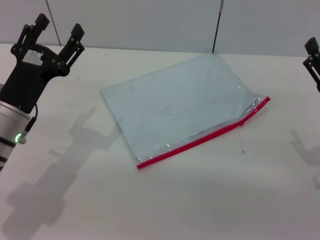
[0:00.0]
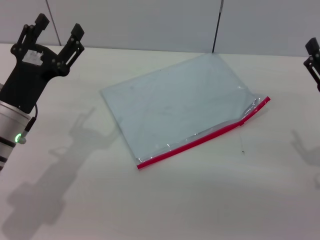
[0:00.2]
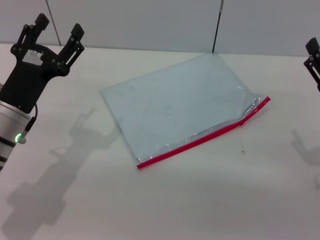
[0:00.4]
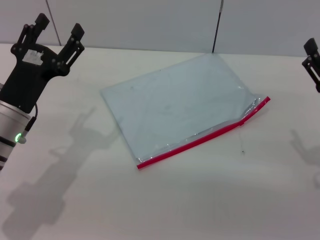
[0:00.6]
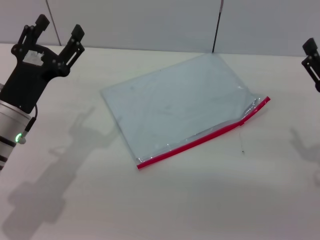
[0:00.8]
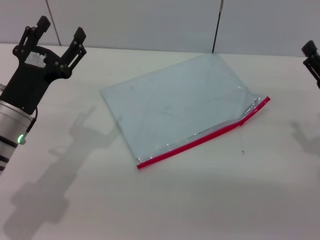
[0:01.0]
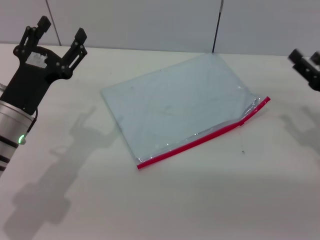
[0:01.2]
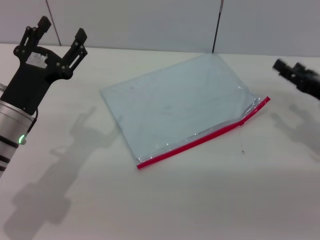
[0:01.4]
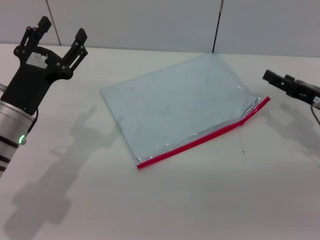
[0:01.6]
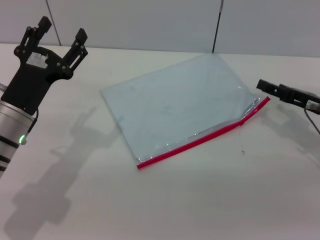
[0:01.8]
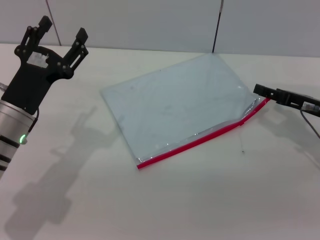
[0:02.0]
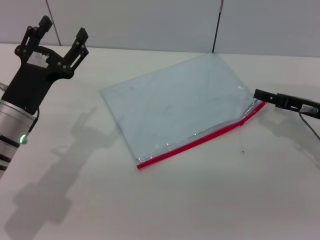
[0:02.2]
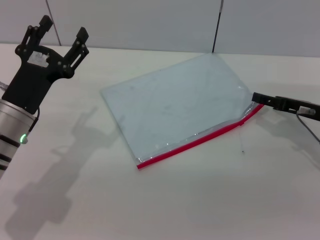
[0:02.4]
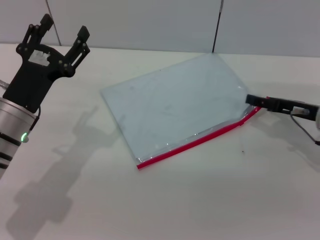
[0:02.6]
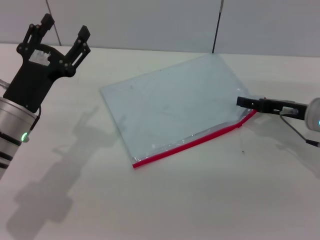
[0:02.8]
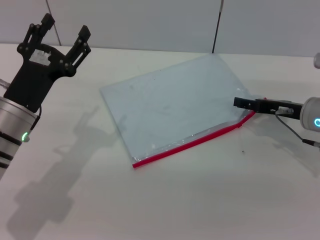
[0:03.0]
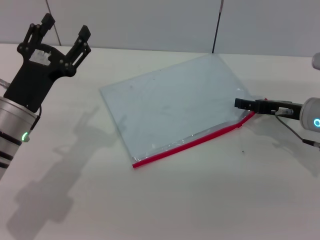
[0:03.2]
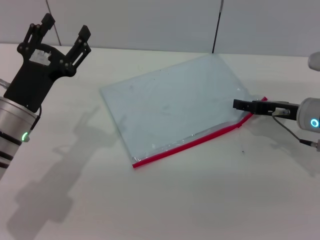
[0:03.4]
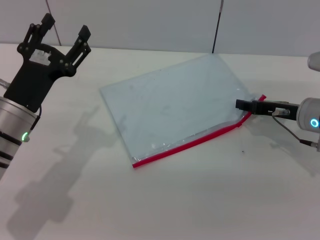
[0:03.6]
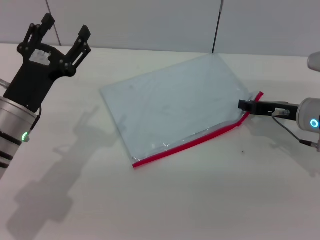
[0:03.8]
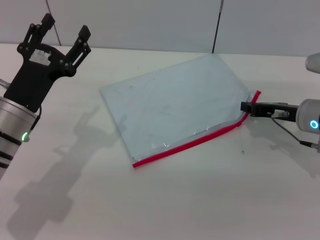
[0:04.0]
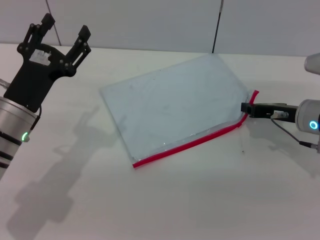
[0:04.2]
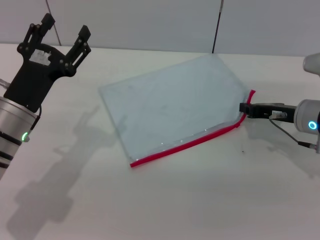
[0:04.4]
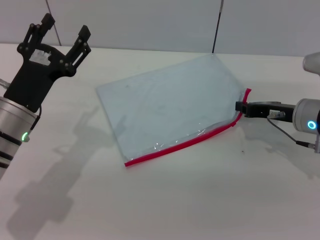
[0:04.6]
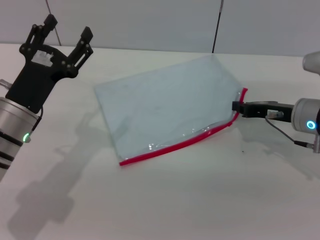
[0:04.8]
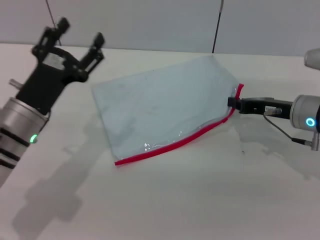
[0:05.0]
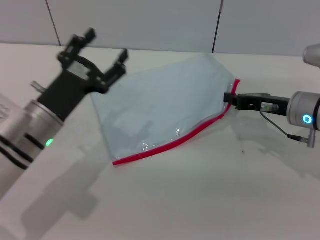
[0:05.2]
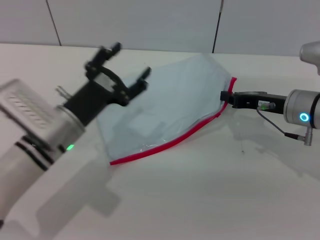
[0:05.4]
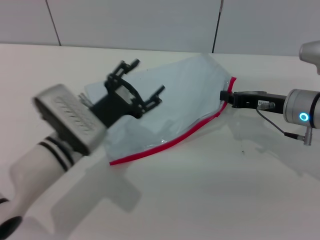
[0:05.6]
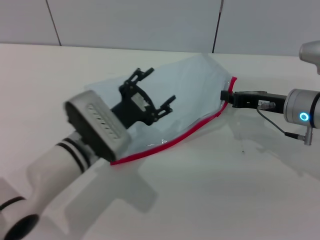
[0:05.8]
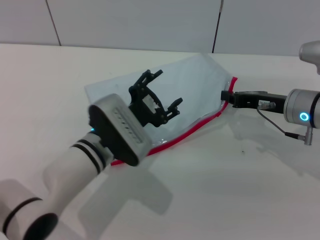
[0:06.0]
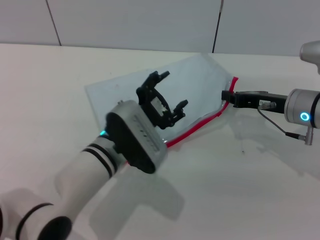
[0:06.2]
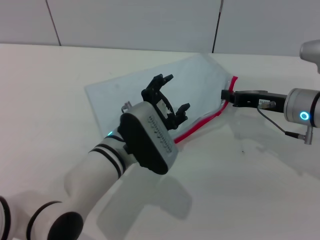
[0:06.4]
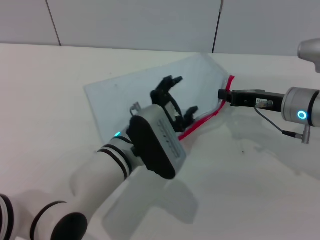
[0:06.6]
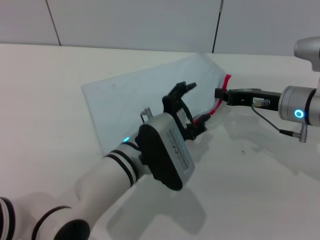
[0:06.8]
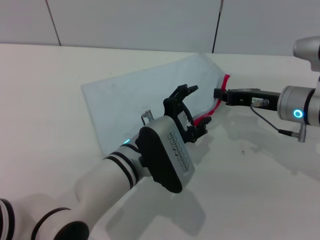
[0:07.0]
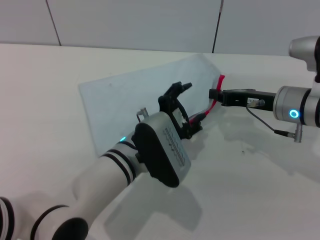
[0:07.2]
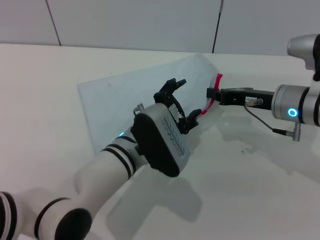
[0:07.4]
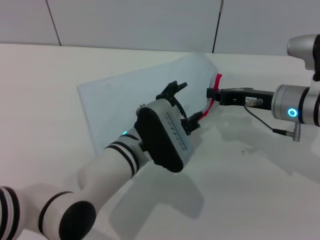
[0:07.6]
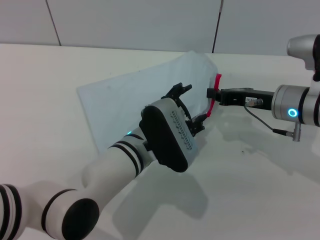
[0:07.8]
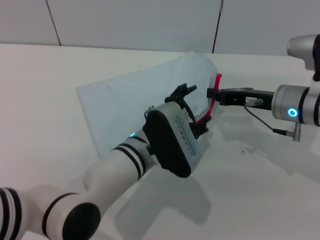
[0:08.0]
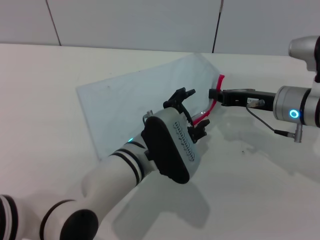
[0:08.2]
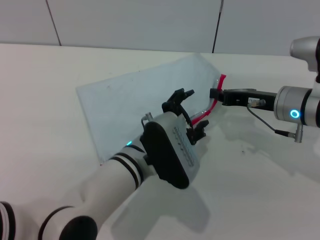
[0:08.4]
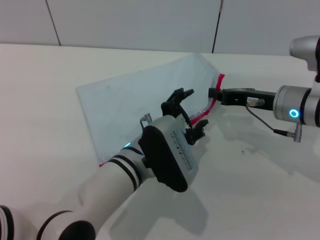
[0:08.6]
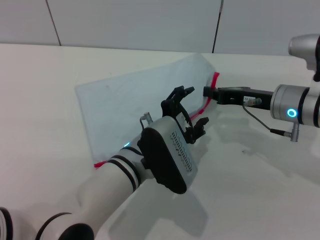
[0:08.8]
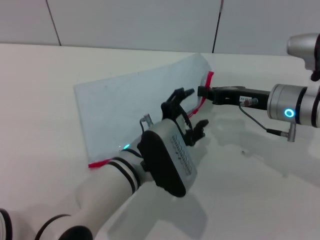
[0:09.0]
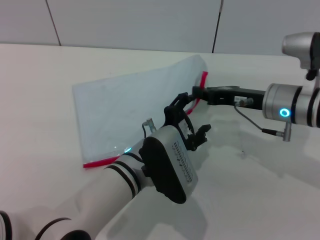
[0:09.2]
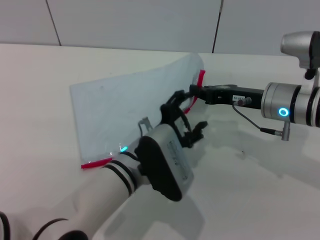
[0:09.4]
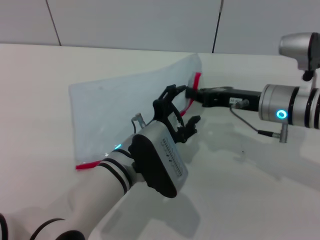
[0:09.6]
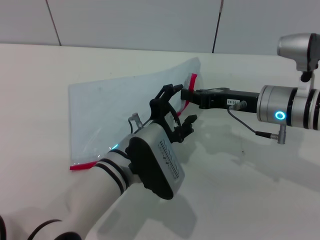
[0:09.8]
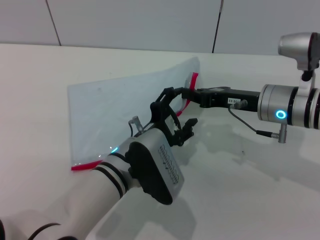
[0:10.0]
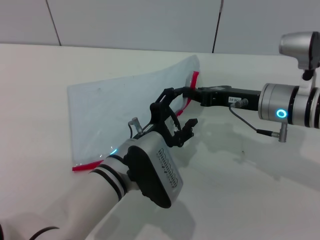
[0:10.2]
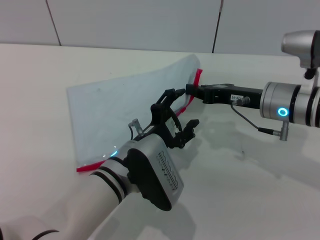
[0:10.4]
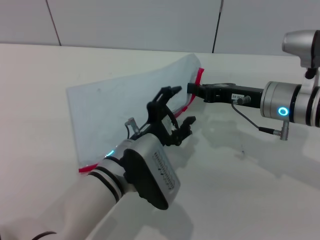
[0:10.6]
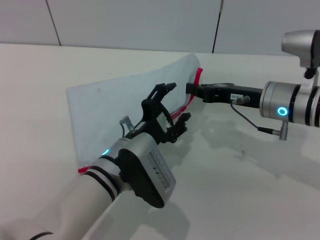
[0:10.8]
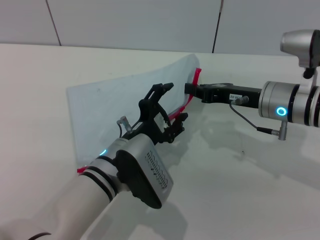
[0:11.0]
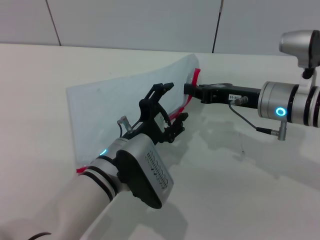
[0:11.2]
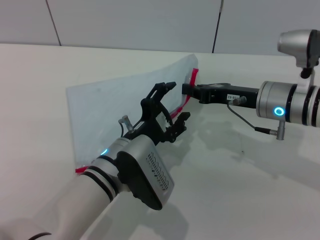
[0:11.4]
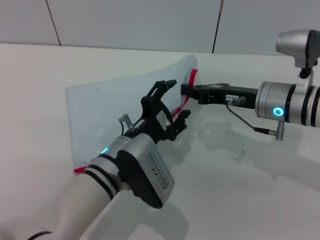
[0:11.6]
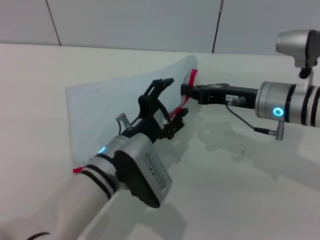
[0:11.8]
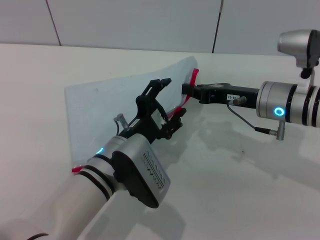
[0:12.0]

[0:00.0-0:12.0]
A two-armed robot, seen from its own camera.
Step, 0:00.0 to 0:07.4: Pick up the transparent plastic bag with the right gripper.
0:00.0 to 0:01.6: The right gripper goes approximately 10 cm forward.
0:01.6 to 0:03.0: The right gripper shifts by approximately 5 cm.
0:03.0 to 0:04.4: The right gripper closes.
0:04.4 to 0:06.0: The left gripper goes roughly 10 cm to the right.
0:07.6 to 0:12.0: The grippers make only small movements.

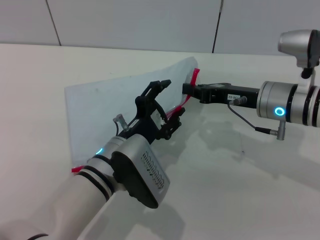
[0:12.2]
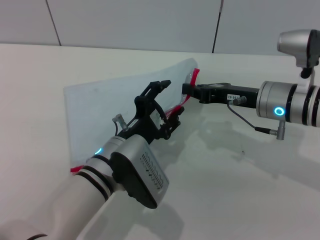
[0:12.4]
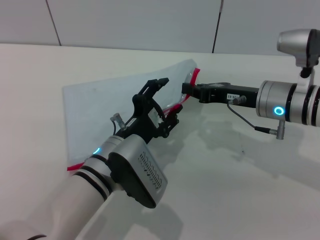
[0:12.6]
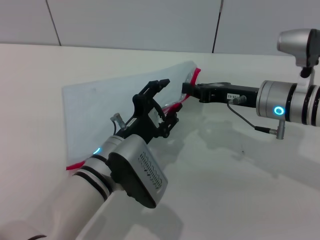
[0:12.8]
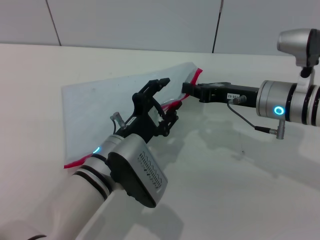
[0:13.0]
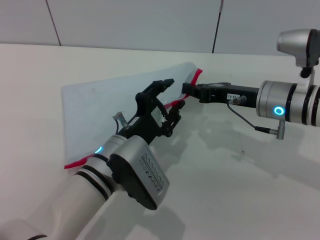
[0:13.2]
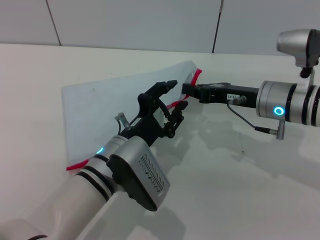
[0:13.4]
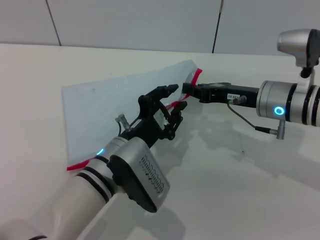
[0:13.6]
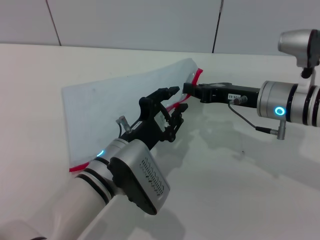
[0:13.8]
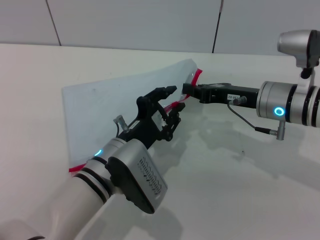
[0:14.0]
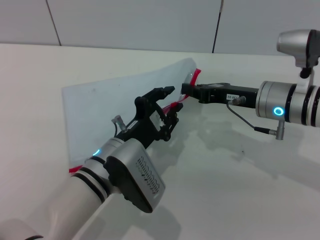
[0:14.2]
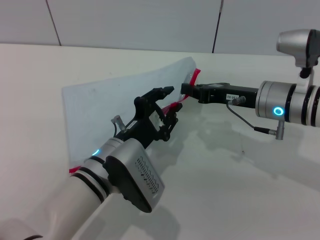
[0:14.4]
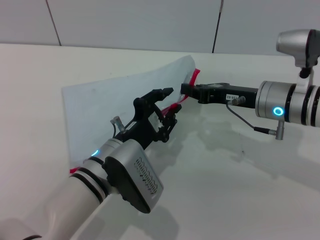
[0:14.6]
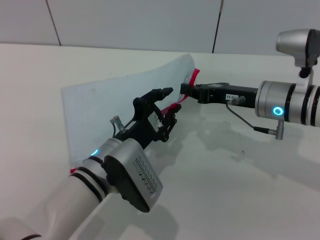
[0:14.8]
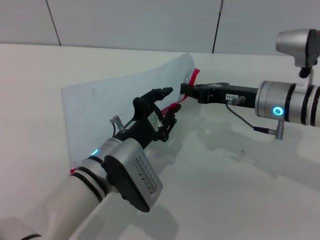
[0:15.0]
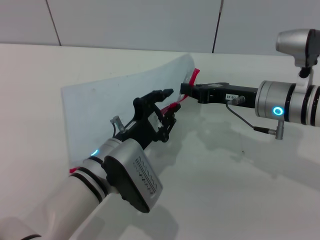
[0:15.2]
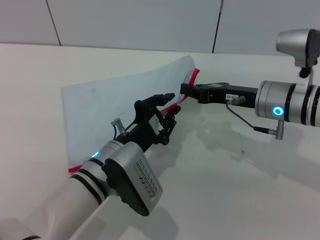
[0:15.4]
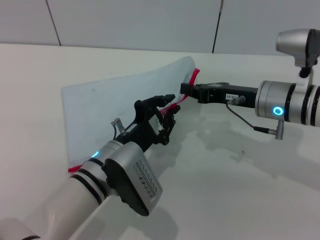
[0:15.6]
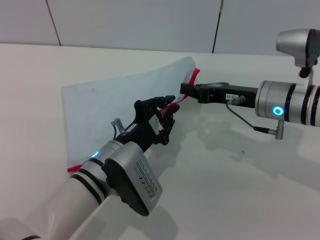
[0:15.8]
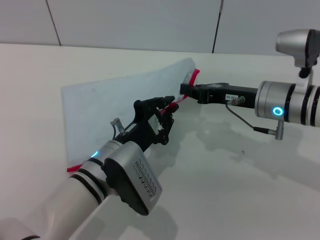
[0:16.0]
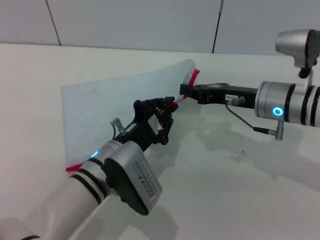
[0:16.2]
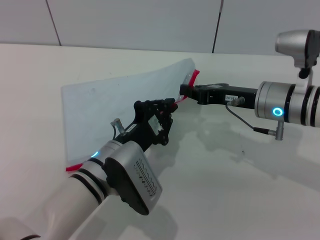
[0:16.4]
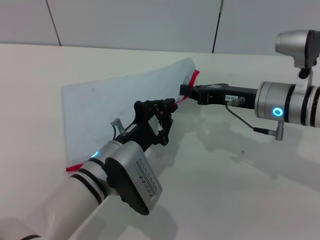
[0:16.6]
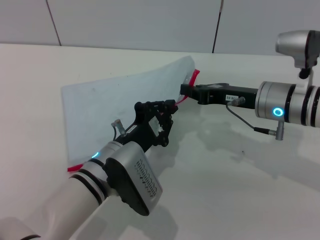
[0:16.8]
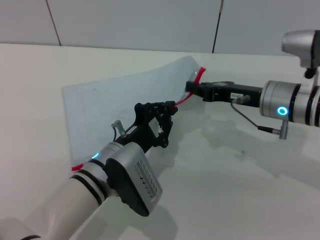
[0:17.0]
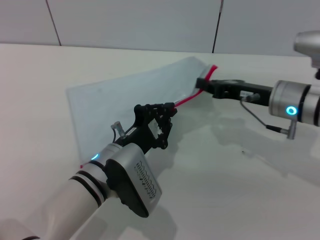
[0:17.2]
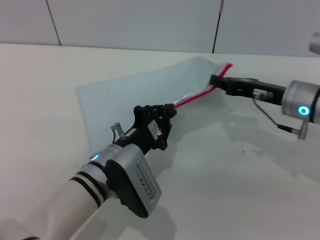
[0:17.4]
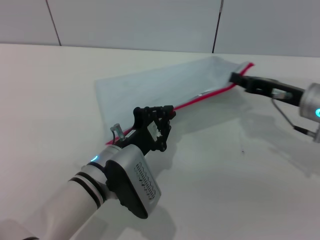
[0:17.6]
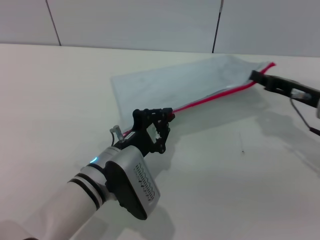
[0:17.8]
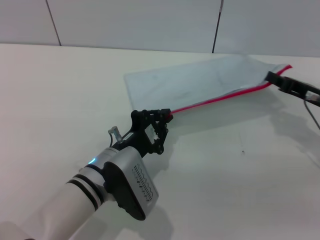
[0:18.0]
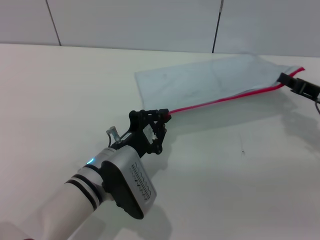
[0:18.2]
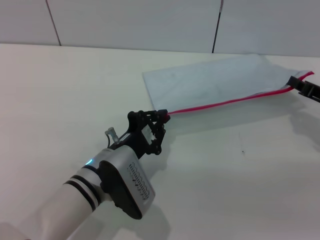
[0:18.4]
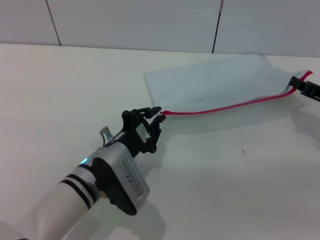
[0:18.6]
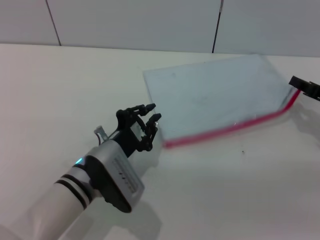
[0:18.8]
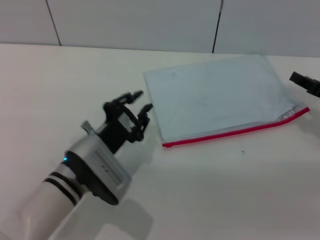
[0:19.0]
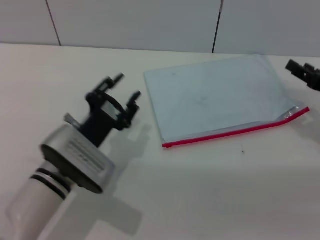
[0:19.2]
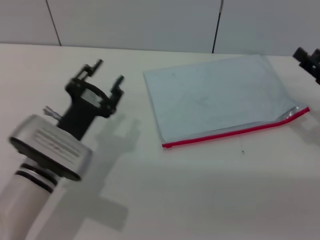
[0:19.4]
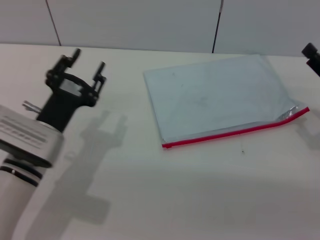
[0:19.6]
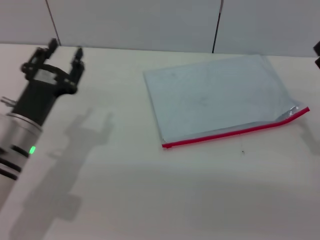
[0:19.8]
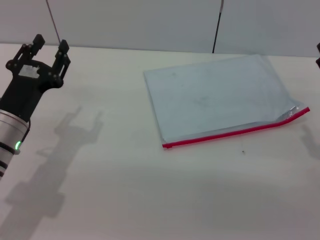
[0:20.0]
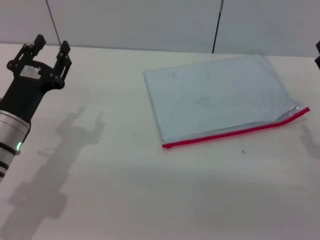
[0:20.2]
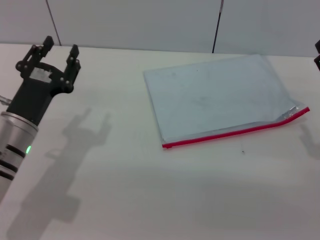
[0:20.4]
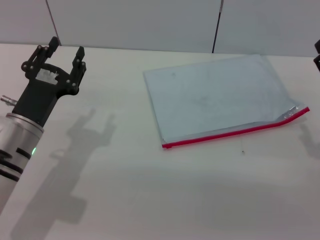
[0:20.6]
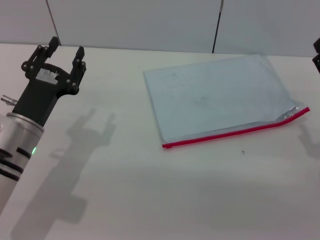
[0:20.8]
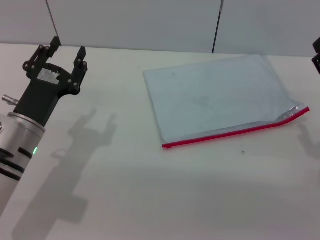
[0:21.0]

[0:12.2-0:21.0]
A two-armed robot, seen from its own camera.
Step, 0:12.2 to 0:18.4: Pulling up the zipper on the transparent plastic bag with the left gripper to close it.
Step, 0:18.6 to 0:19.4: Place the transparent plastic bag.
0:12.2 to 0:13.6: The left gripper closes.
0:13.6 to 0:16.6: Neither gripper changes place.
0:16.6 to 0:18.0: The right gripper is displaced to the right by about 10 cm.
0:18.0 to 0:19.6: The left gripper shifts about 10 cm to the left, and opens. Meanwhile the right gripper heads backward, covering roughly 5 cm, and opens.
